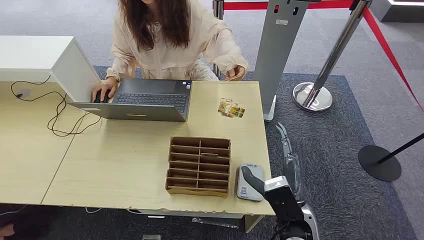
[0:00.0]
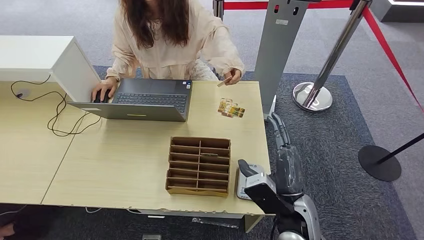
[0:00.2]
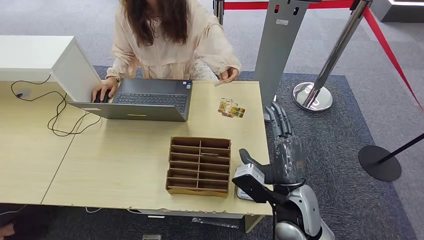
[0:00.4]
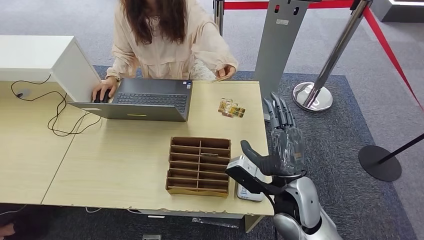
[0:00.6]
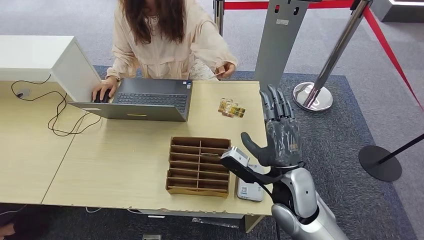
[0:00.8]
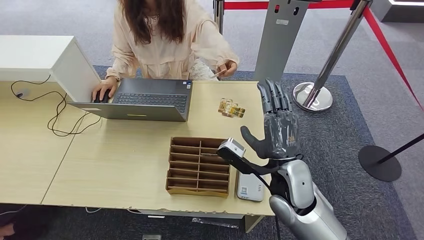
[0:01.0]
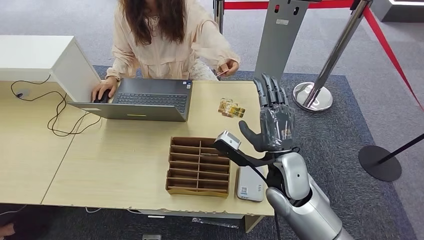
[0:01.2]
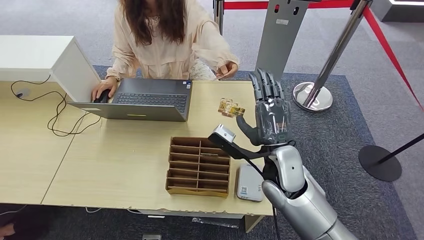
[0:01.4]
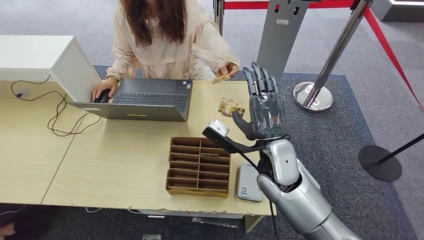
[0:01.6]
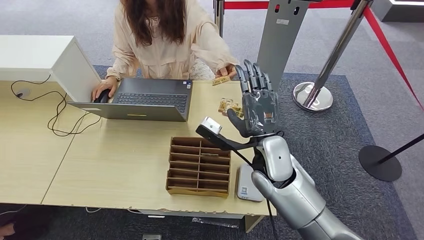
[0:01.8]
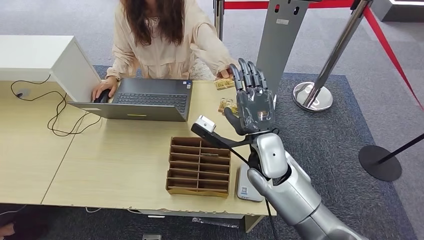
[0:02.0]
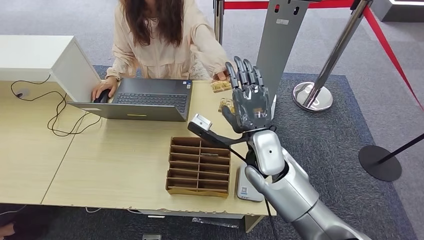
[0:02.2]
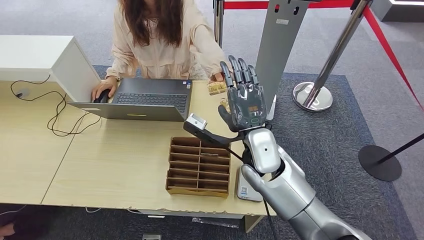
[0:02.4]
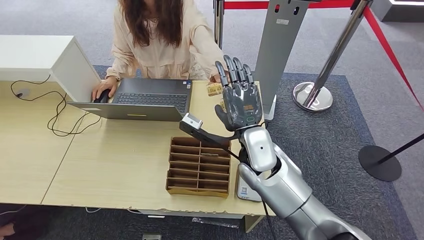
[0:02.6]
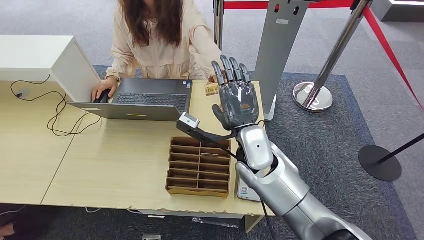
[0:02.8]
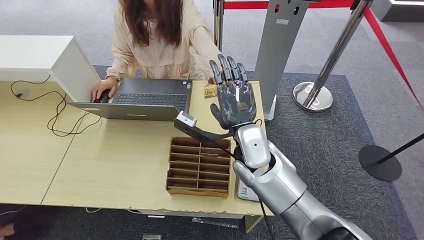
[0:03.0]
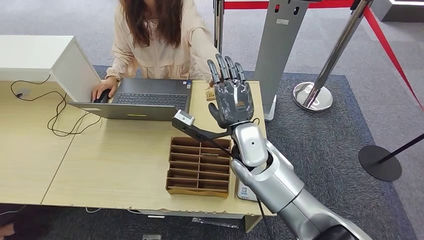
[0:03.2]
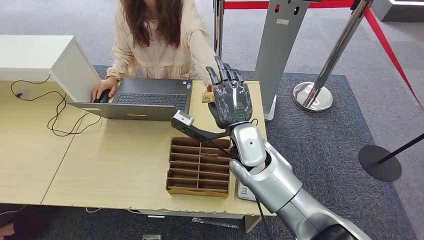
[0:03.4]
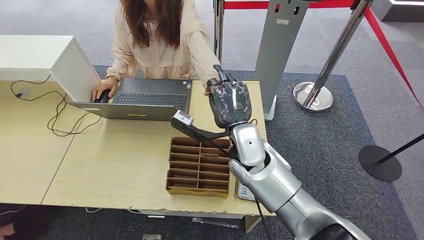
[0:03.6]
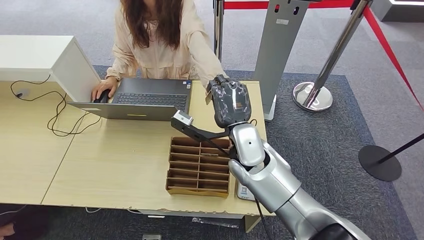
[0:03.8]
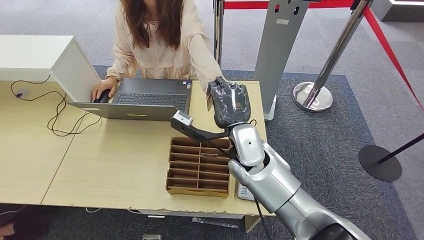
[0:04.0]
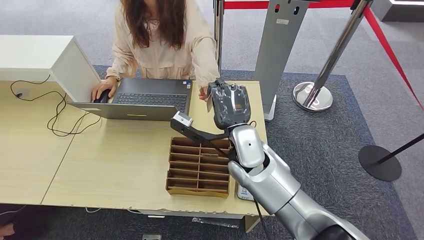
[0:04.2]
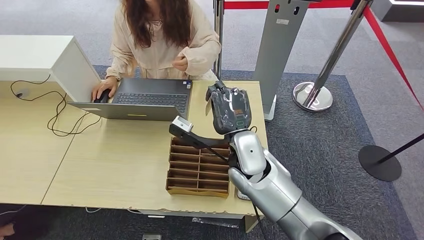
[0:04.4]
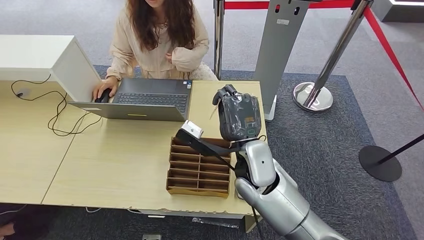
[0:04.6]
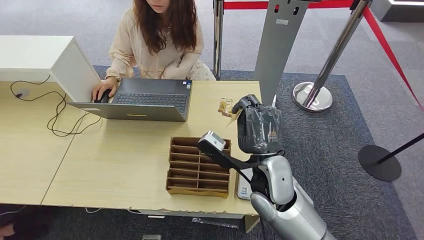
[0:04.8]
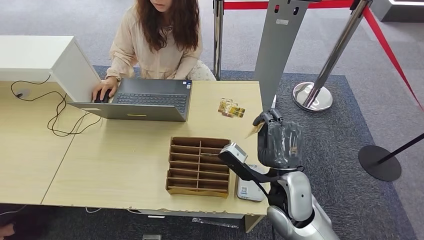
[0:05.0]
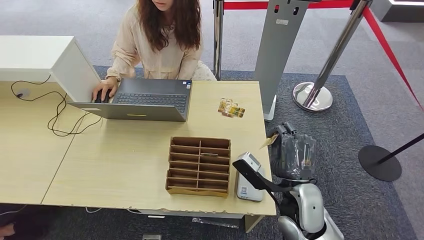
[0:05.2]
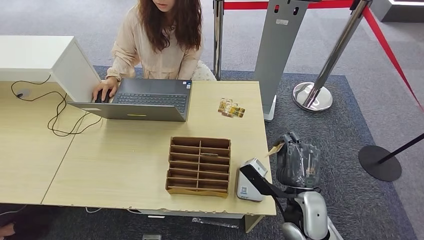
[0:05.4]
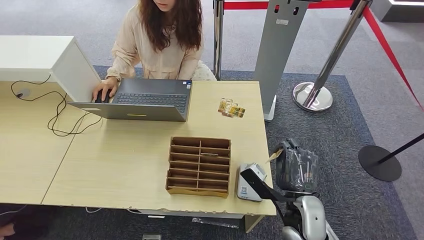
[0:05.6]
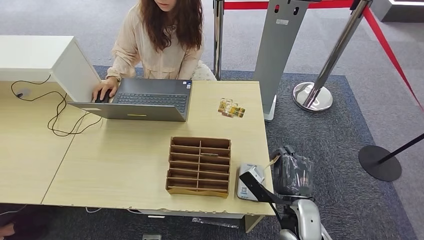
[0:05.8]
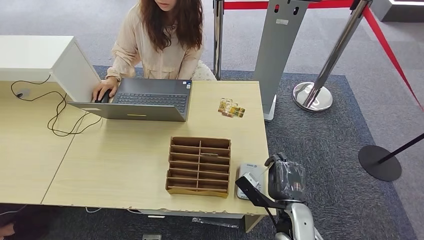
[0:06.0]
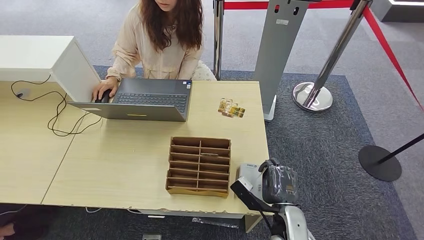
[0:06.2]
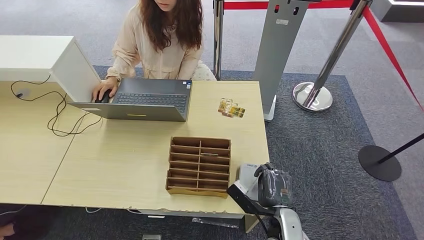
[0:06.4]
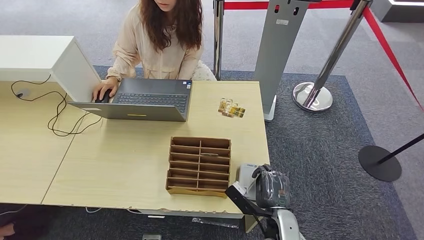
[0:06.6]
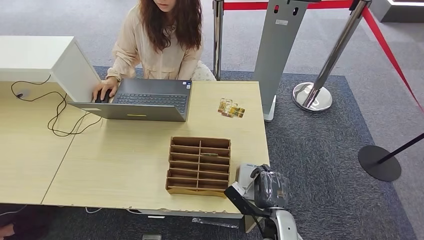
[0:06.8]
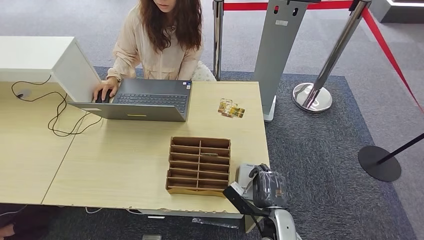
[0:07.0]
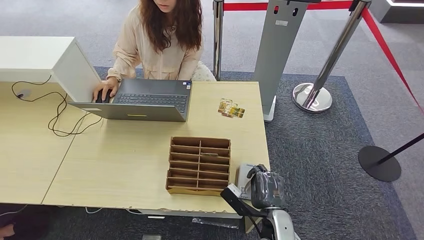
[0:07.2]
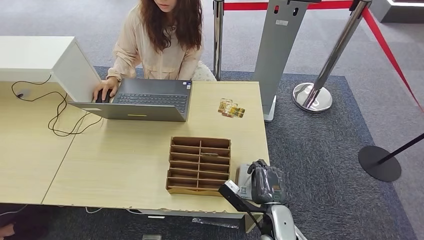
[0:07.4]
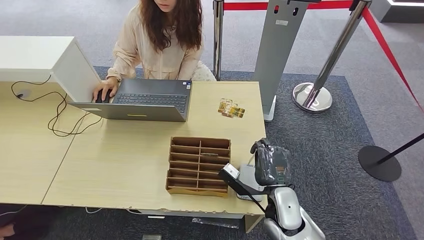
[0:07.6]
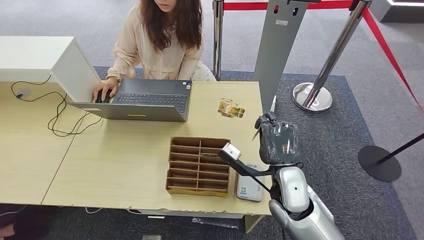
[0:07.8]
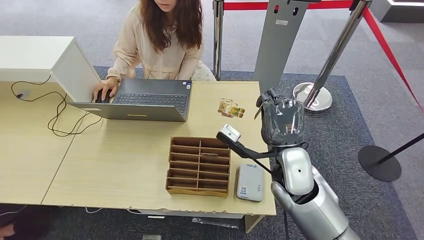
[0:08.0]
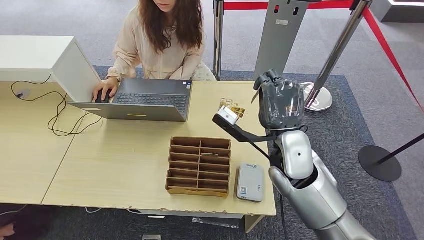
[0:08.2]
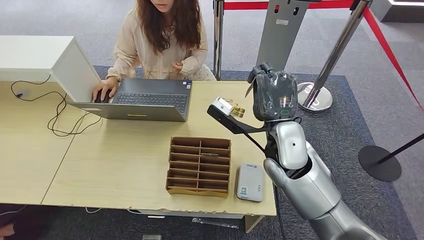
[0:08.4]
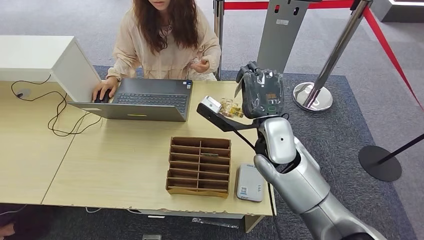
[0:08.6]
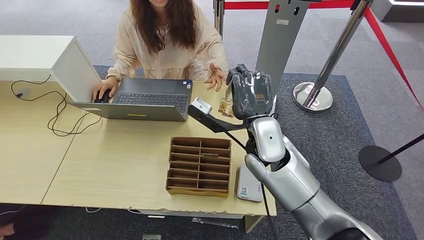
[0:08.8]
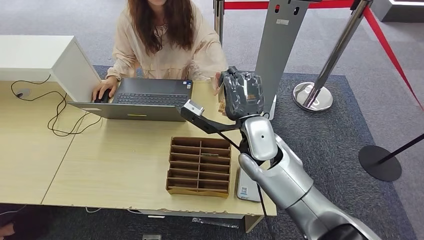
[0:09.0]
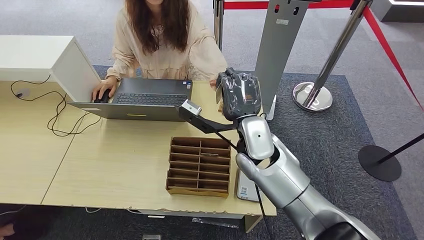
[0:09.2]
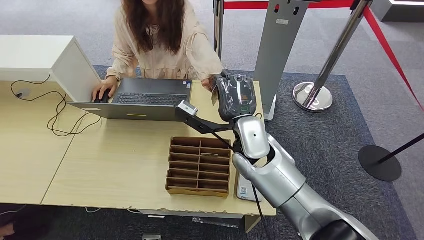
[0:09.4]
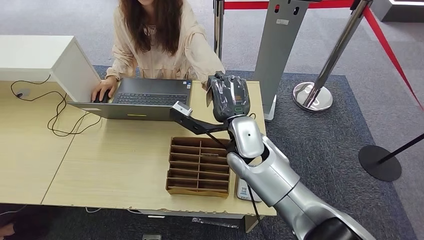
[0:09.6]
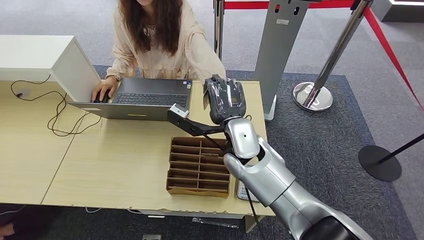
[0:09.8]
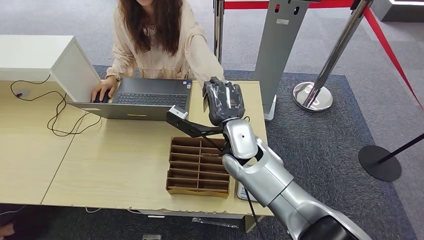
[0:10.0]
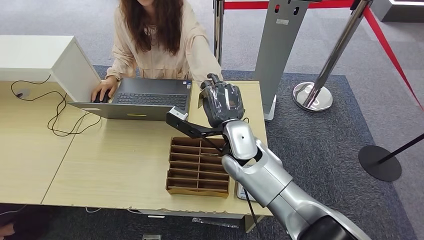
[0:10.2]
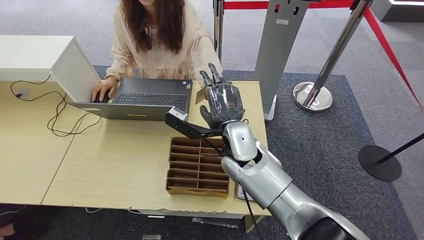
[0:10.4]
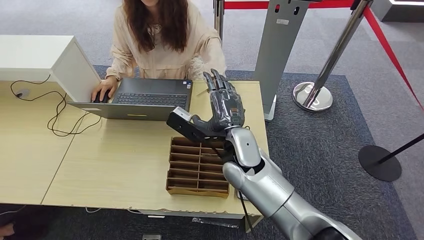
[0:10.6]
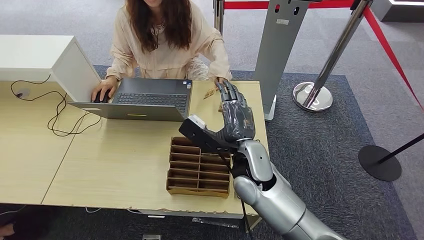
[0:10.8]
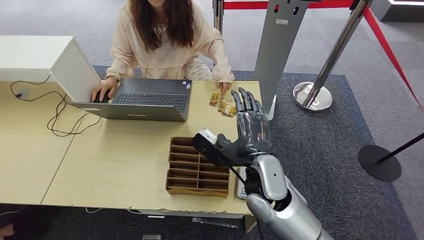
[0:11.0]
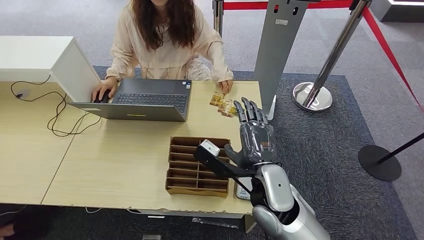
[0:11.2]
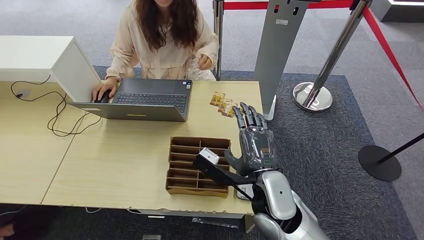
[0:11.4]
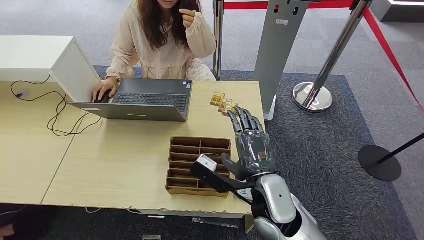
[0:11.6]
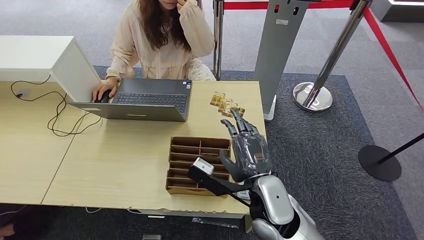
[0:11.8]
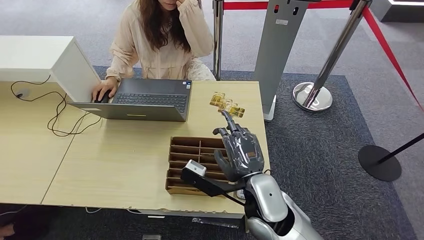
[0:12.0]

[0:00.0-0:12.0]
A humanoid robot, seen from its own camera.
Step, 0:00.0 to 0:05.2: Take the ID card from the person's hand.
Step, 0:05.4 to 0:08.8: Place the ID card on the card reader.
0:01.6 to 0:03.0: The right hand heads to the left, covering about 5 cm.
0:03.0 to 0:04.4: The hands stay close to where they were, moving slightly.
0:04.4 to 0:06.0: The right hand moves downward, to the right and backward, approximately 20 cm.
0:07.6 to 0:09.0: The right hand goes roughly 20 cm upward, forward and to the left.
0:09.0 to 0:10.4: There are only small adjustments of the hands.
0:10.4 to 0:12.0: The right hand travels backward and to the right by about 15 cm.

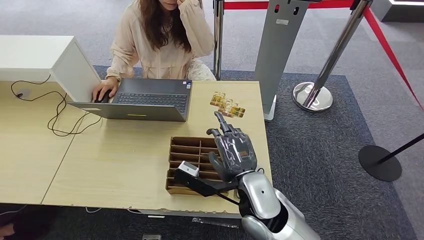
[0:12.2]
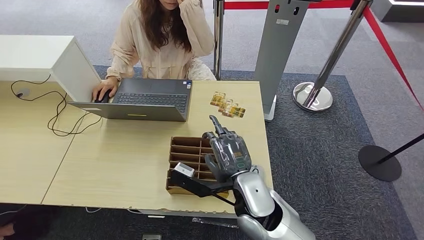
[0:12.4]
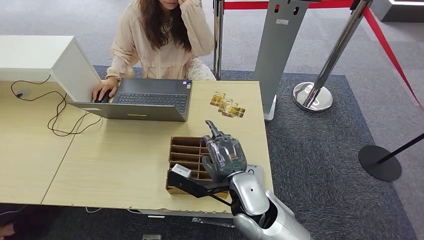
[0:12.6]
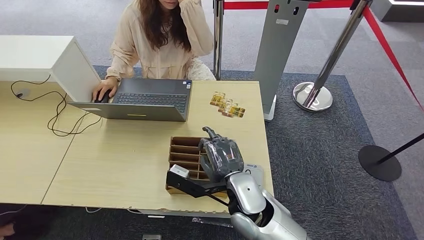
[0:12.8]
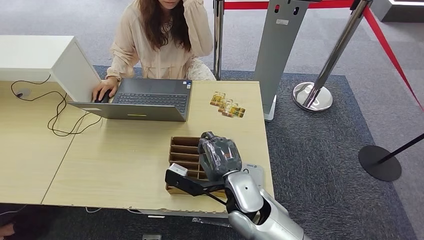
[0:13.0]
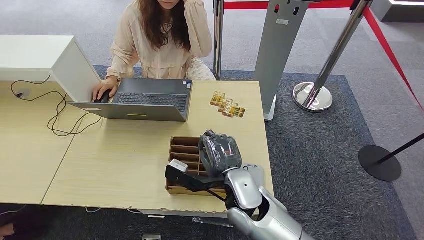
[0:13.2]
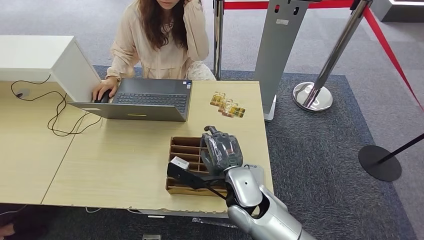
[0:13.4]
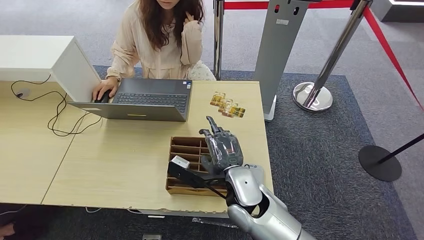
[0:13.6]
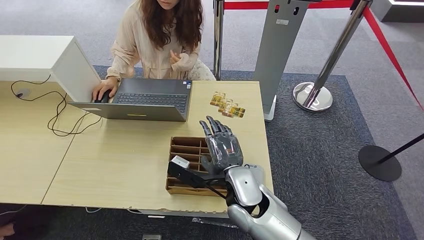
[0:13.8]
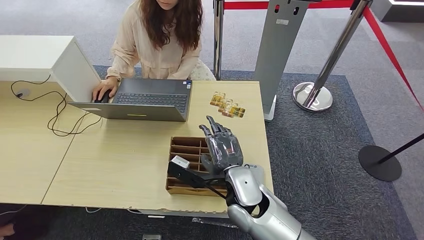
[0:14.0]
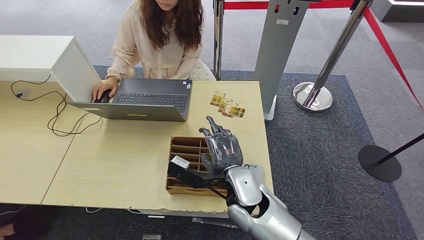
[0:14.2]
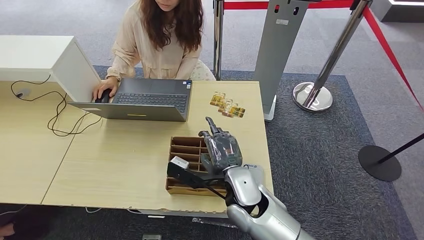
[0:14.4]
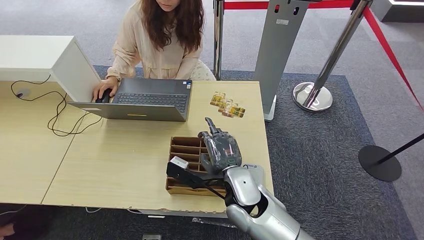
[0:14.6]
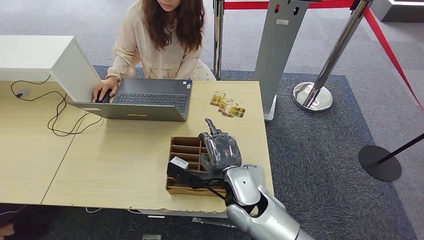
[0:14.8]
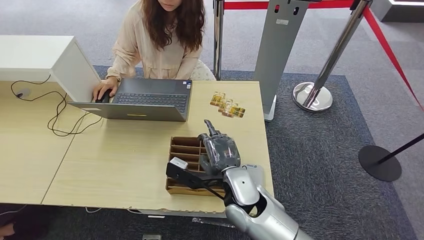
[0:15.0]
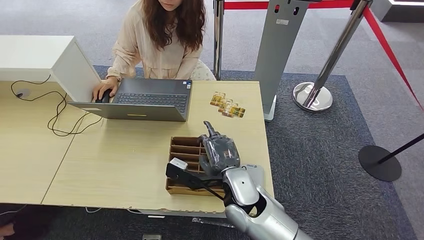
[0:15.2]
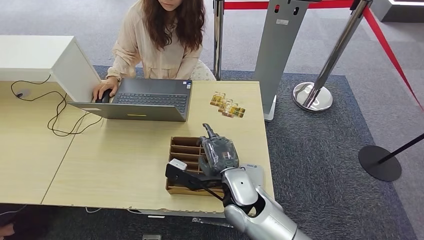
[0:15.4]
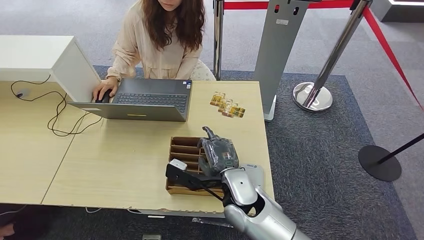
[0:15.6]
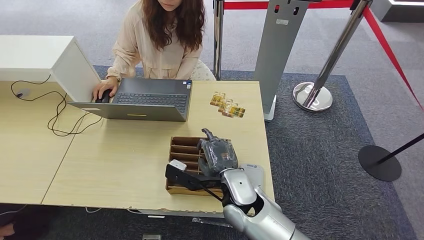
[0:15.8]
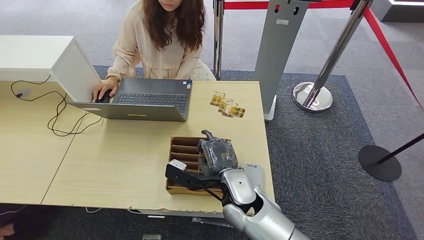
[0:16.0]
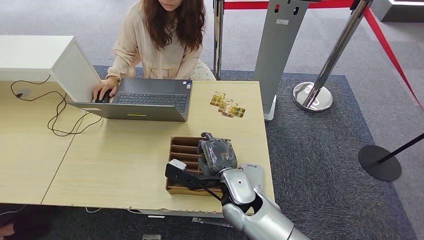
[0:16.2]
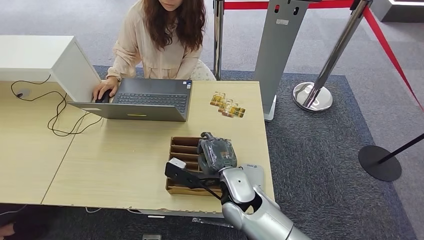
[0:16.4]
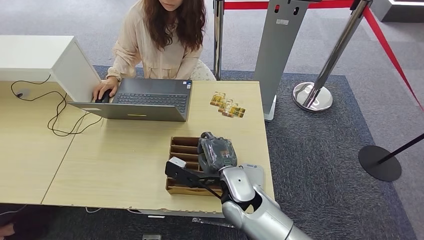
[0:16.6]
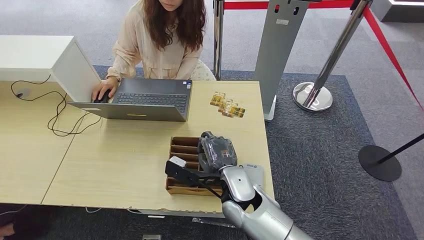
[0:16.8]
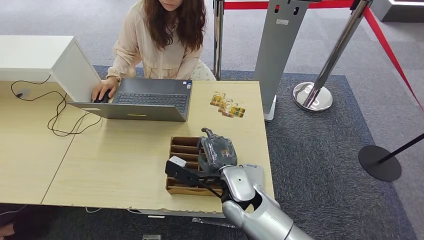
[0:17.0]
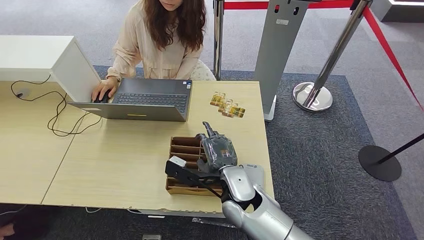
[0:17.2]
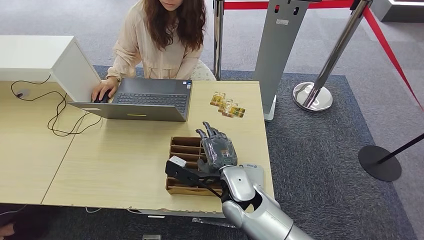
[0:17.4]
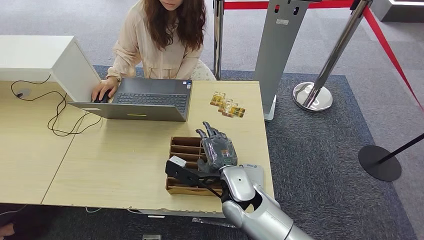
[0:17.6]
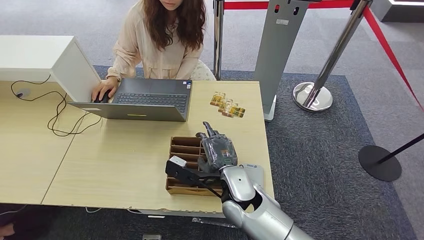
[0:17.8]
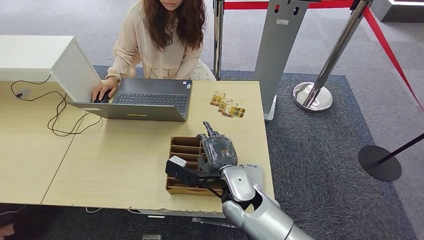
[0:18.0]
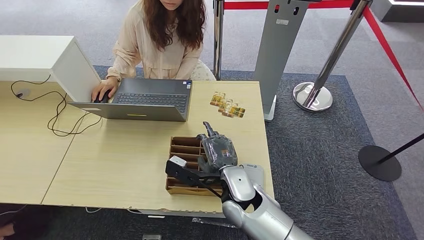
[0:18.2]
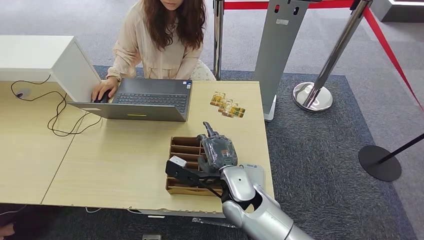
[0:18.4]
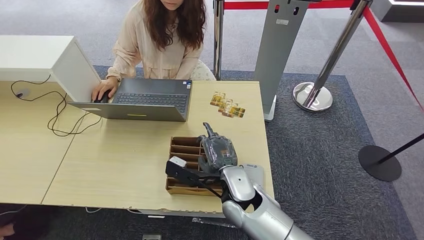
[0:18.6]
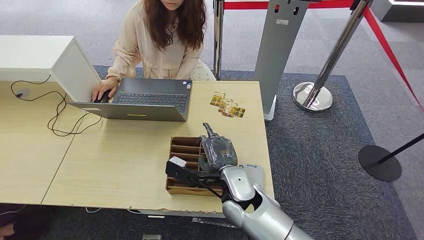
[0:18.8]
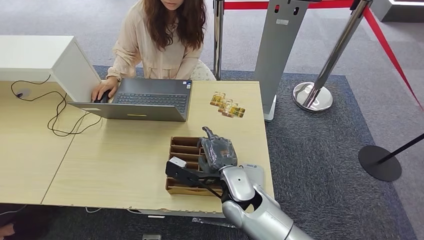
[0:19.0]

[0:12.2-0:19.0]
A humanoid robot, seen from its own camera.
0:12.2 to 0:13.6: The hands stay close to where they were, moving slightly.
0:13.6 to 0:15.0: Neither hand changes place.
0:15.0 to 0:16.2: The hands stay close to where they were, moving slightly.
0:16.2 to 0:19.0: Neither hand changes place.
